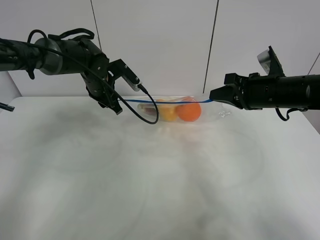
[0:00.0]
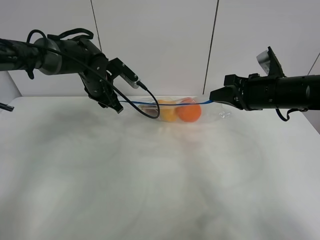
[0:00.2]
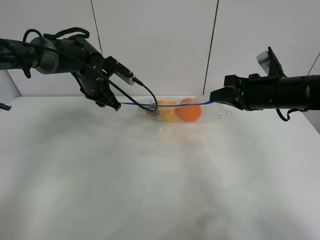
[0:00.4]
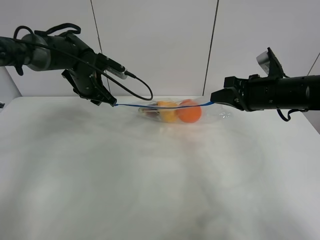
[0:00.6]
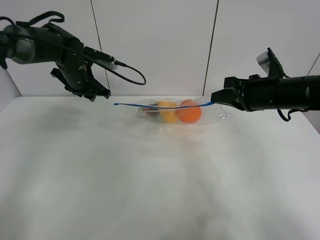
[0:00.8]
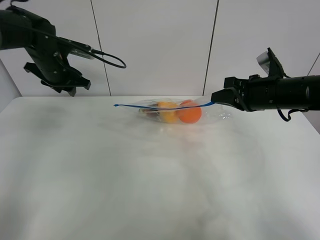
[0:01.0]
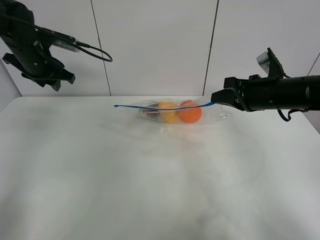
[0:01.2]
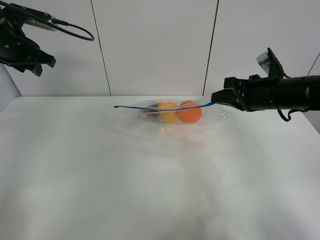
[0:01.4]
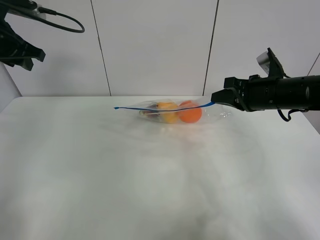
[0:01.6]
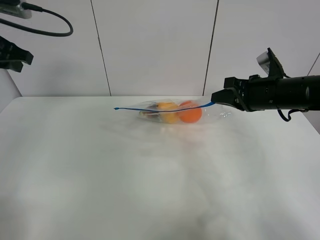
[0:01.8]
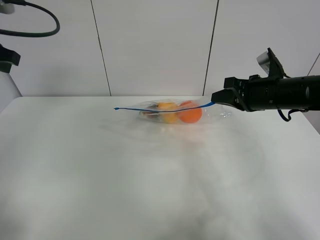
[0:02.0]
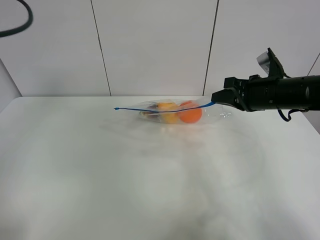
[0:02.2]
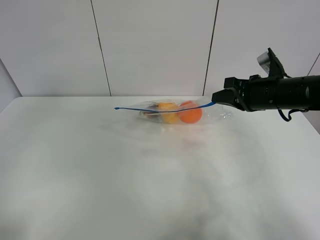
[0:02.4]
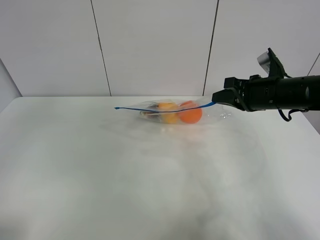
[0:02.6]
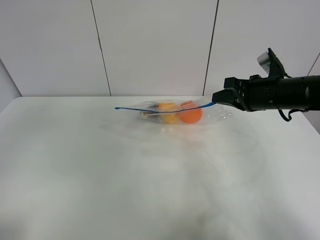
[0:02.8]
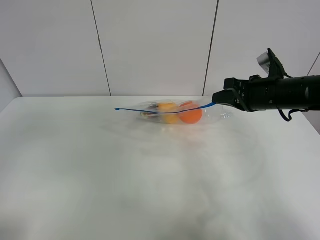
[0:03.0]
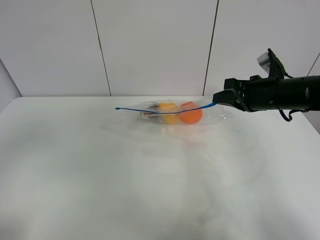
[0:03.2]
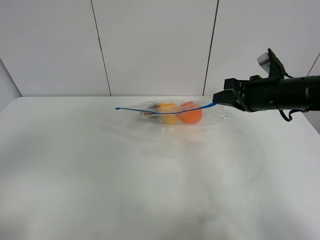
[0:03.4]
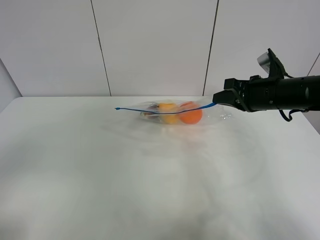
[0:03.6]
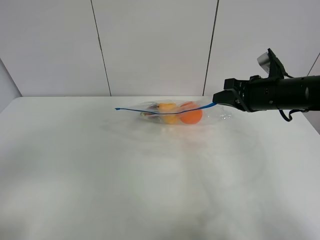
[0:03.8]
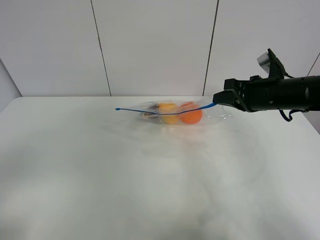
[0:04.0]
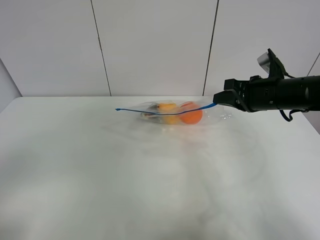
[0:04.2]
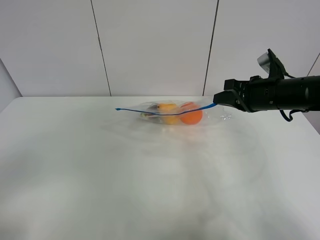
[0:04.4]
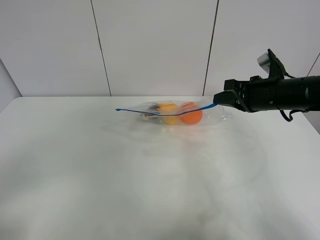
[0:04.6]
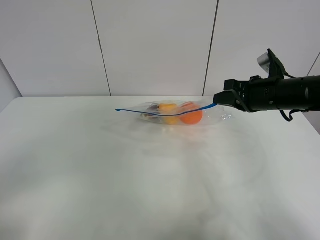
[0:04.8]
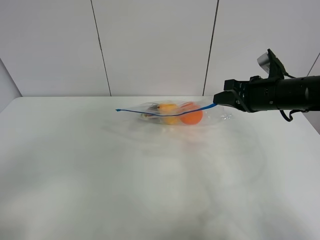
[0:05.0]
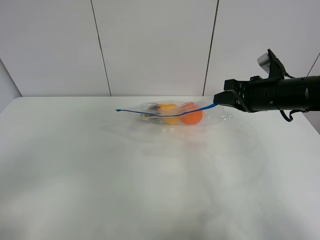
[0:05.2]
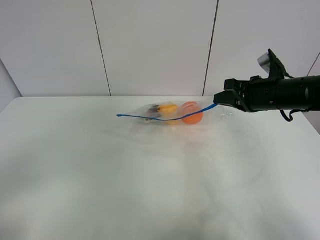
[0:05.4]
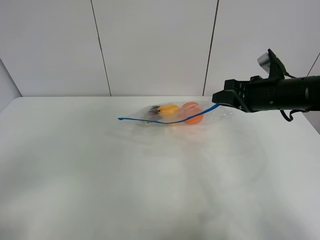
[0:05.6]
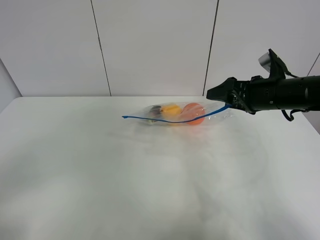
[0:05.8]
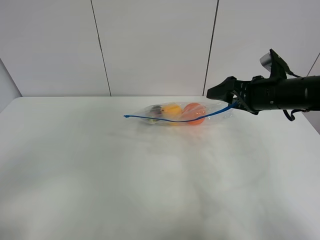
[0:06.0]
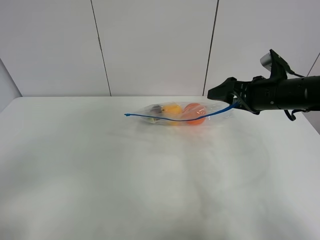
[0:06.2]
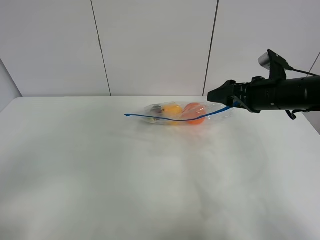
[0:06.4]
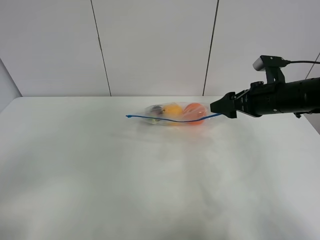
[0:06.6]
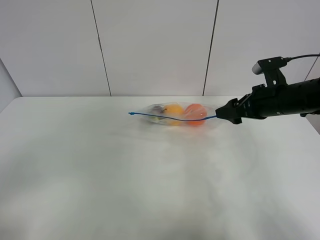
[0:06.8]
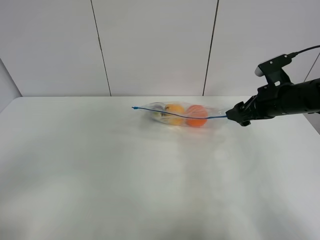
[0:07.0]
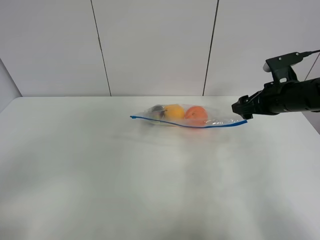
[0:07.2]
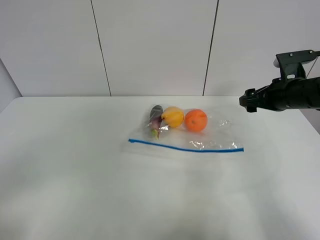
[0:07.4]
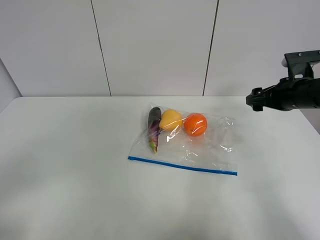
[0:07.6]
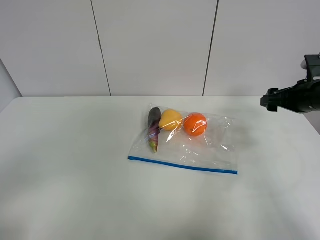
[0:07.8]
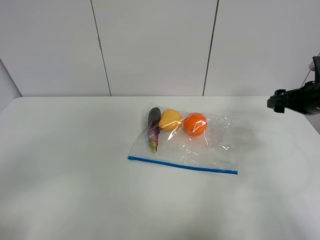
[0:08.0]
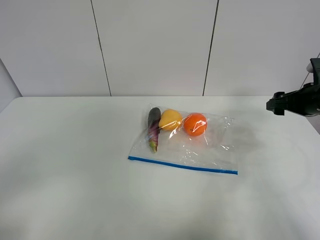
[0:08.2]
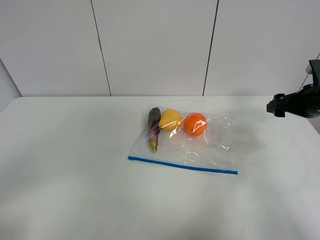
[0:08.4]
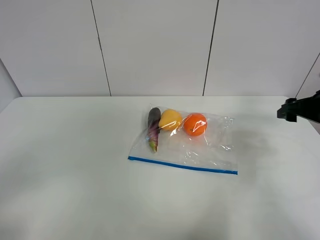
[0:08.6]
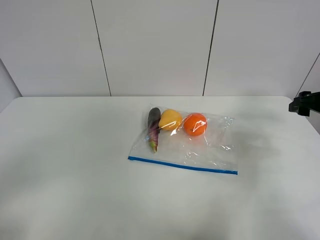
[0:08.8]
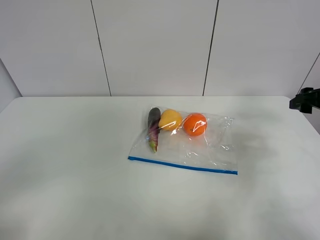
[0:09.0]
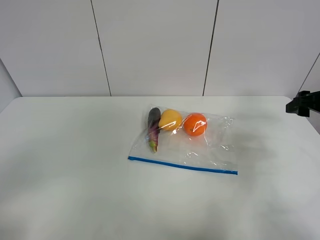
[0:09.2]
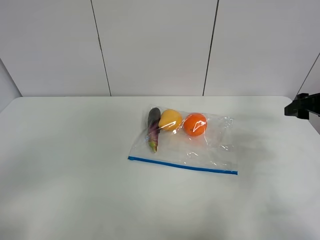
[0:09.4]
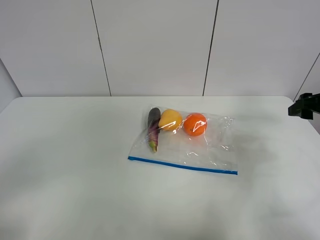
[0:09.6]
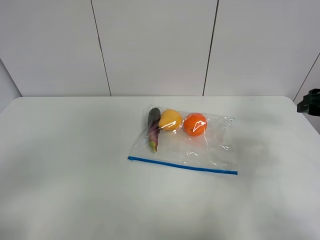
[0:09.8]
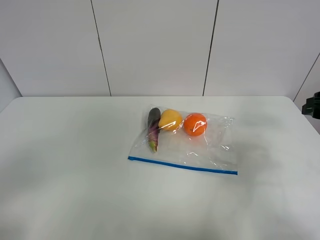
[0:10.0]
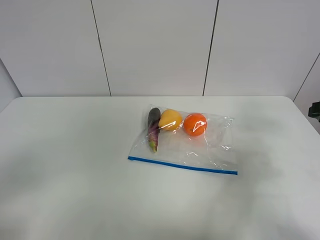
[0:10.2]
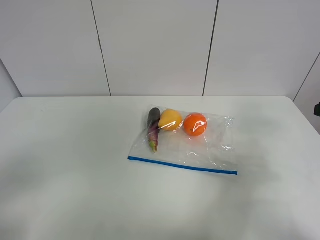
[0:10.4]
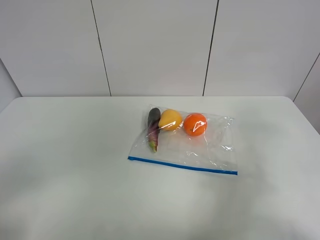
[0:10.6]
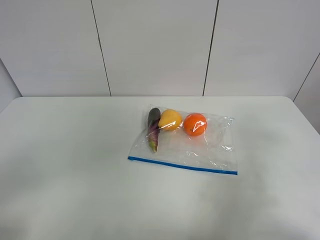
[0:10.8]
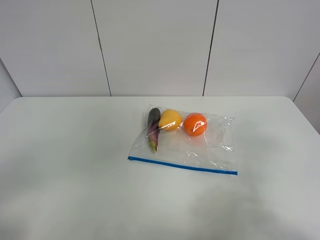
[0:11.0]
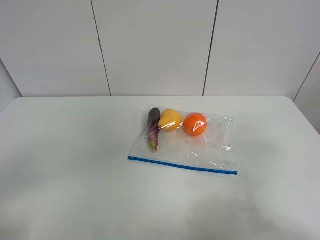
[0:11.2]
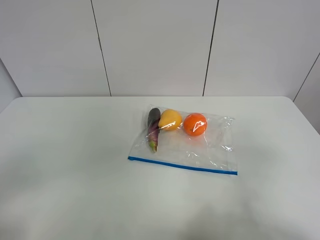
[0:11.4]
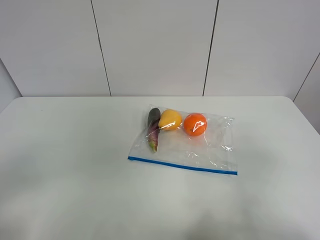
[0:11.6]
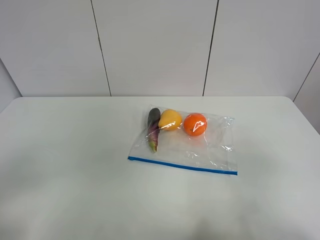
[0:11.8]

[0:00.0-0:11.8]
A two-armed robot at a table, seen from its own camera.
0:00.0 to 0:01.4: The left gripper travels to the left and upward by about 20 cm.
0:01.4 to 0:03.0: The left gripper goes approximately 35 cm backward.
0:04.4 to 0:06.0: The right gripper opens up.
0:06.0 to 0:07.4: The right gripper changes place by approximately 5 cm.
0:07.4 to 0:08.8: The right gripper travels to the right by some 10 cm.
0:08.8 to 0:10.4: The right gripper is displaced backward by about 10 cm.
0:10.4 to 0:11.8: The right gripper shifts some 20 cm backward and to the left.

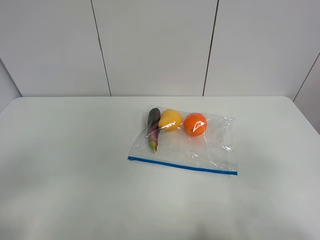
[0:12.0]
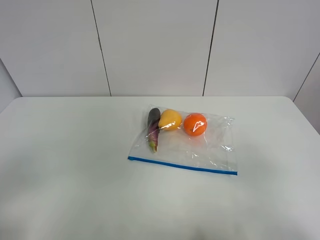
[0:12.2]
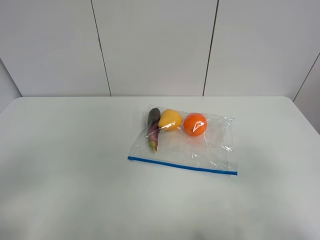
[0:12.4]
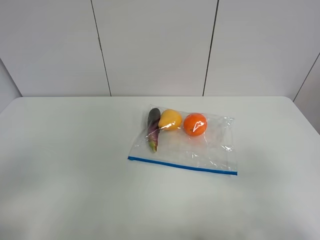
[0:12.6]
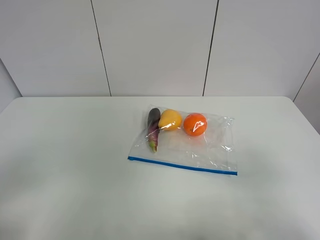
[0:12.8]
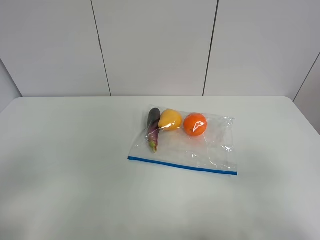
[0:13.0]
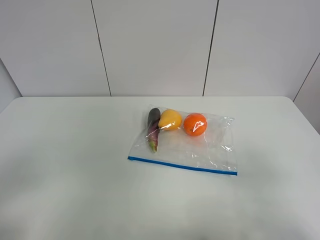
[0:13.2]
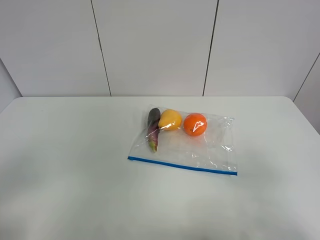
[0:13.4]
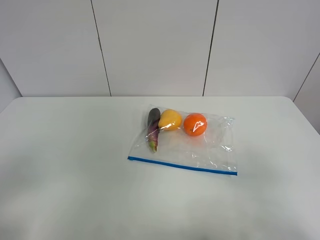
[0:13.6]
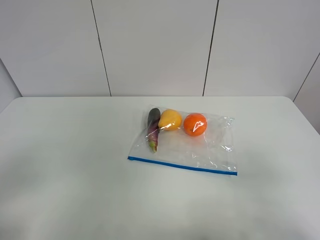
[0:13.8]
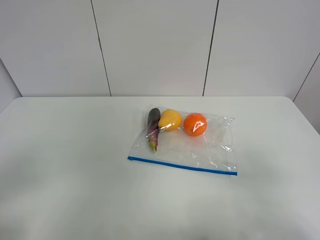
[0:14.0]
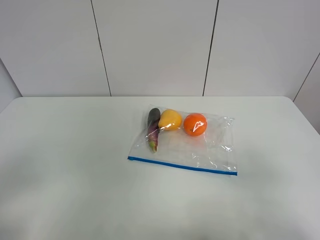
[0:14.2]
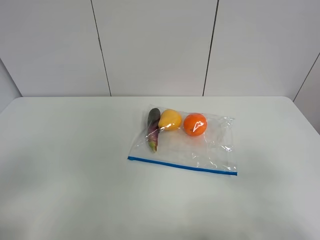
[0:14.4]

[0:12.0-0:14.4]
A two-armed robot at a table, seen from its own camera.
0:13.2 to 0:14.4: Both grippers stay about where they are.

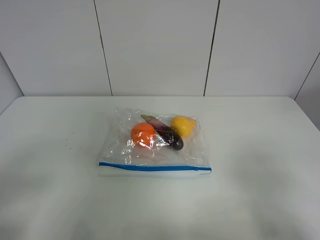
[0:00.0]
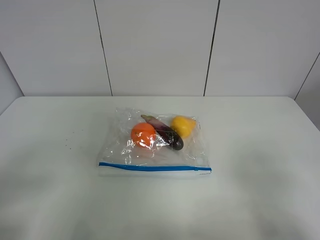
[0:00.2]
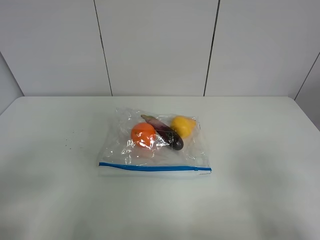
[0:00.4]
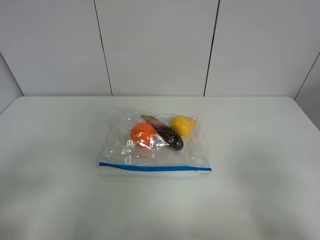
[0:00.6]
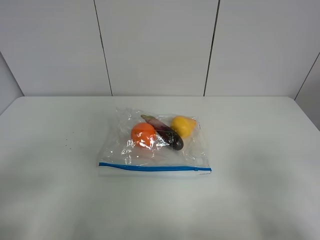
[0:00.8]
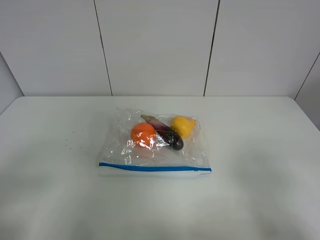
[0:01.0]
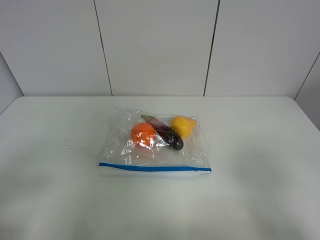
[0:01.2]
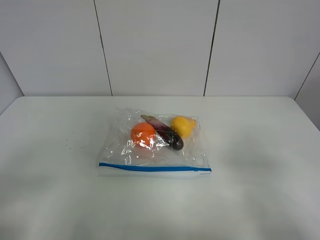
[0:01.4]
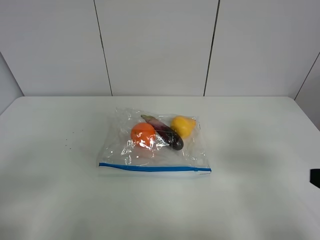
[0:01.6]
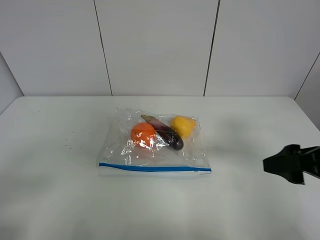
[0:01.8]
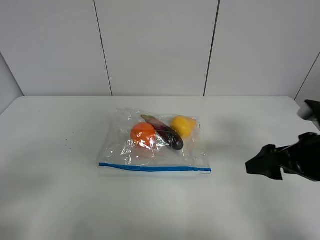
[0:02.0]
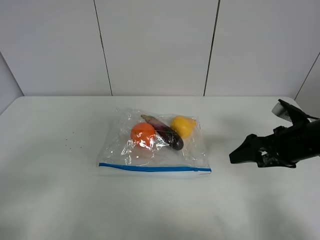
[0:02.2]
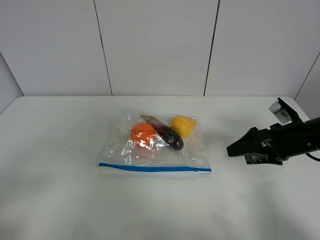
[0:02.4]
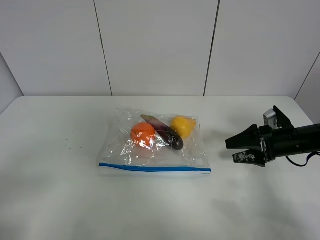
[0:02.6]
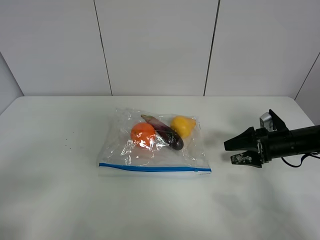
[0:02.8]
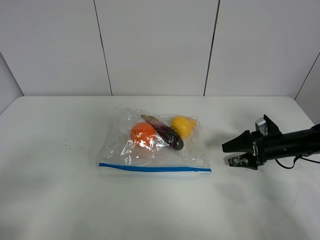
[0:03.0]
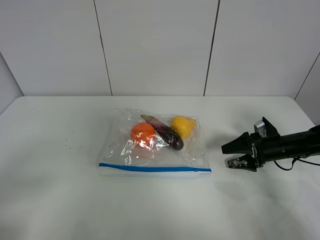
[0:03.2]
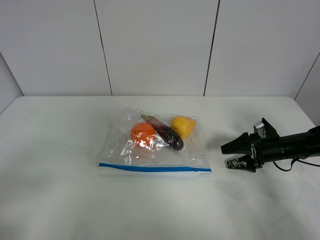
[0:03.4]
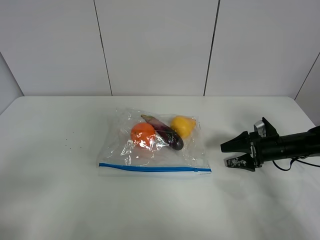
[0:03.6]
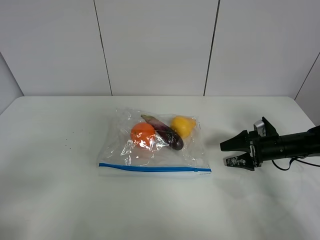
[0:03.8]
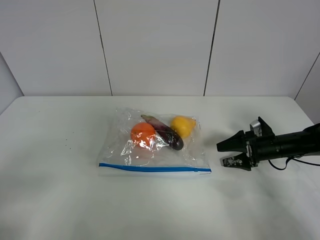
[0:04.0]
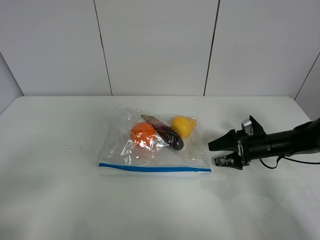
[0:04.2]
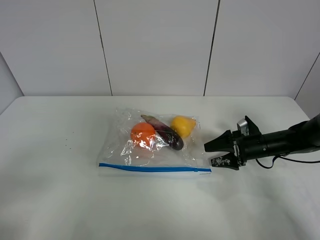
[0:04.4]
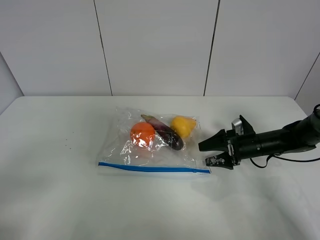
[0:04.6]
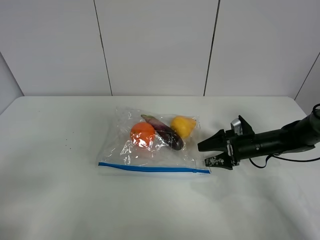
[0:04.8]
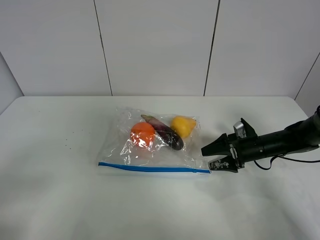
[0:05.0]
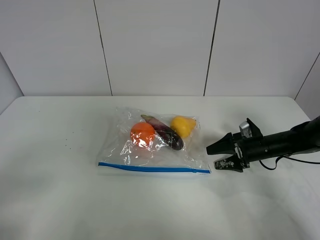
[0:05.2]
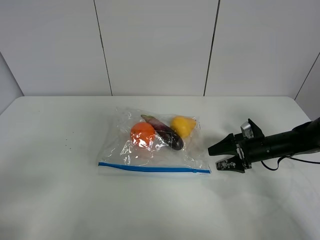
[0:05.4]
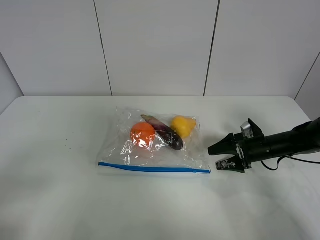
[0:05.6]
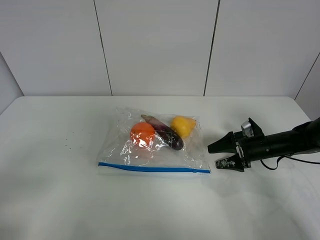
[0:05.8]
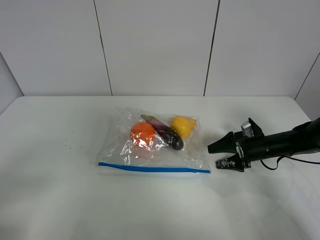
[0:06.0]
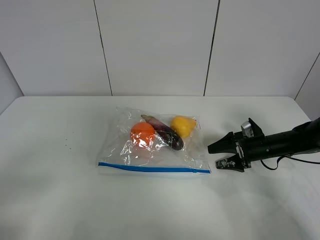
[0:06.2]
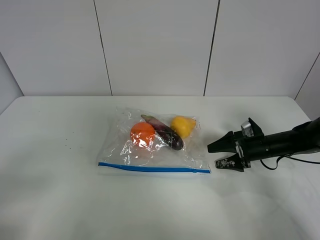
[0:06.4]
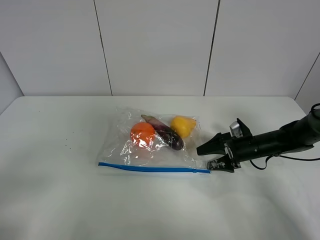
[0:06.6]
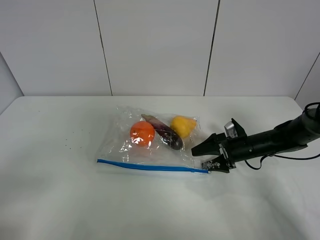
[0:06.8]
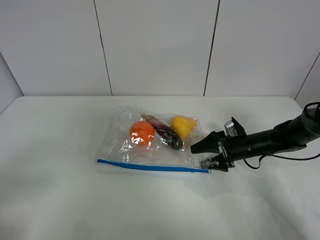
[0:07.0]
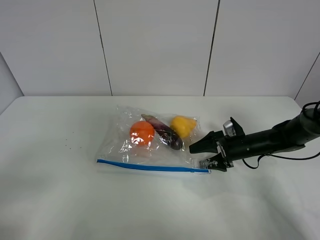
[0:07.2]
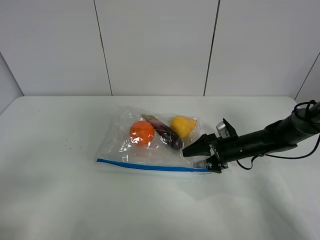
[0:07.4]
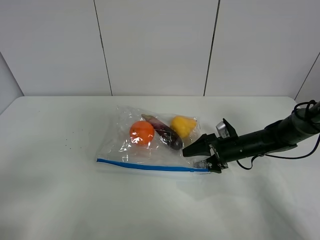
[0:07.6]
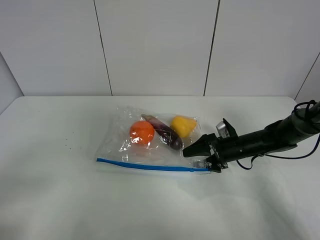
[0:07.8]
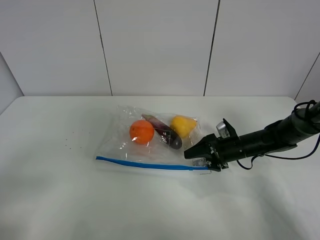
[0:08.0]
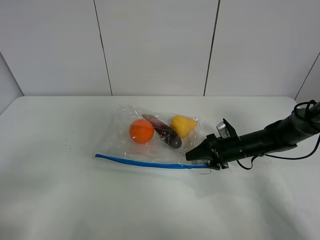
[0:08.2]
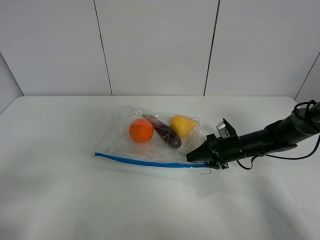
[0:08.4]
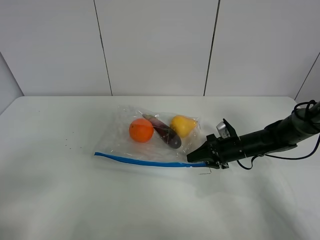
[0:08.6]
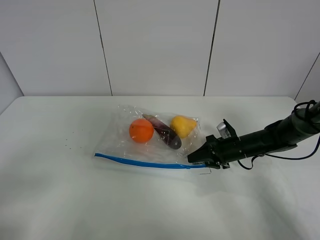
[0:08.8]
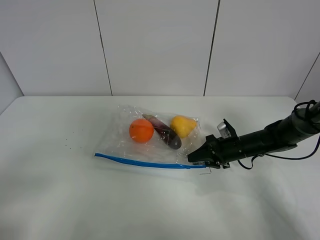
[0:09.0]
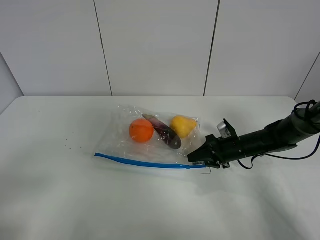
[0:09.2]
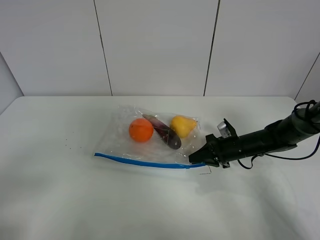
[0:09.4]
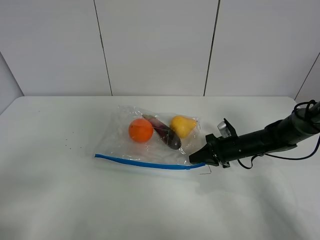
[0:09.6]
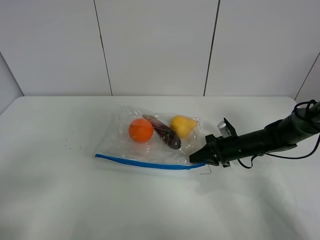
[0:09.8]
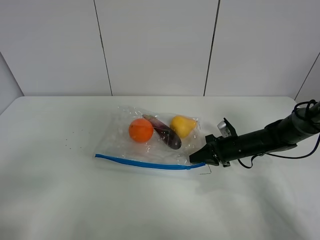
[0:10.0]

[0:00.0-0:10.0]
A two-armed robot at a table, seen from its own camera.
Step, 0:00.0 to 0:09.4: Grasp the fruit bag with right gripper.
0:01.4 to 0:02.8: The right gripper travels forward and downward by approximately 35 cm.
0:02.8 to 0:04.2: The right gripper shifts by roughly 5 cm.
0:04.2 to 0:05.8: The grippers stay close to where they were, moving slightly.
0:05.8 to 0:07.2: The right gripper is displaced to the left by some 5 cm.
0:07.2 to 0:08.6: The right gripper closes its fingers.
0:08.6 to 0:10.0: The right gripper closes.
